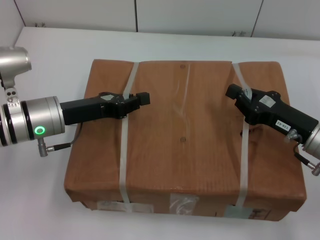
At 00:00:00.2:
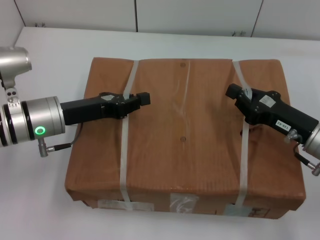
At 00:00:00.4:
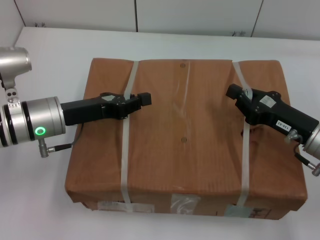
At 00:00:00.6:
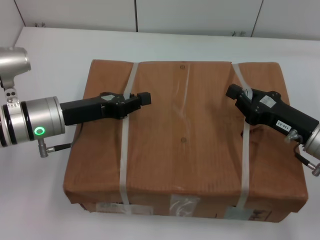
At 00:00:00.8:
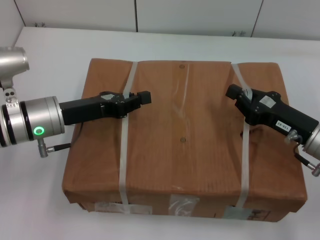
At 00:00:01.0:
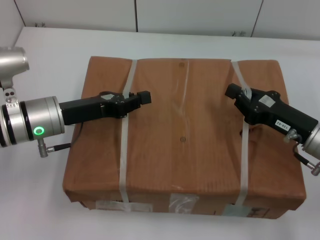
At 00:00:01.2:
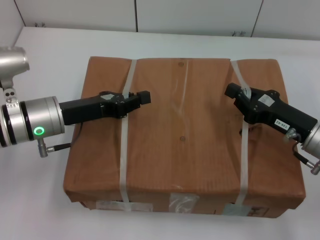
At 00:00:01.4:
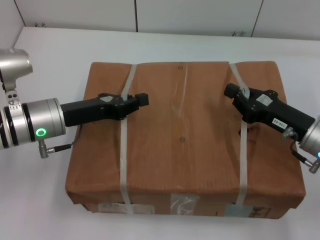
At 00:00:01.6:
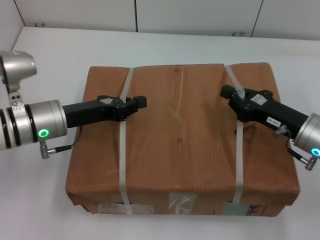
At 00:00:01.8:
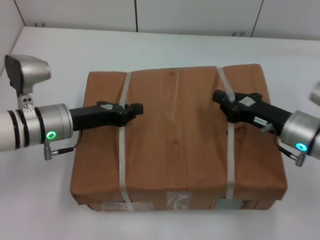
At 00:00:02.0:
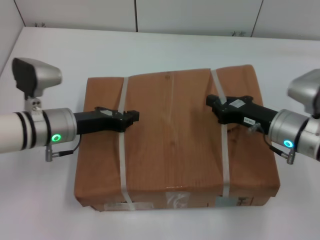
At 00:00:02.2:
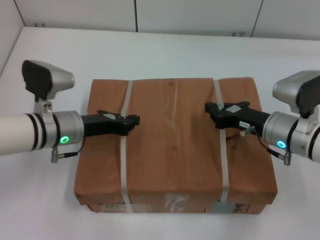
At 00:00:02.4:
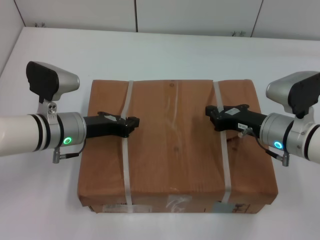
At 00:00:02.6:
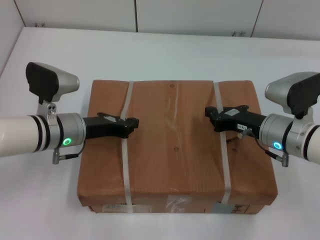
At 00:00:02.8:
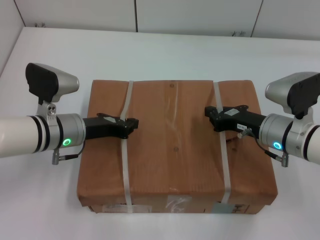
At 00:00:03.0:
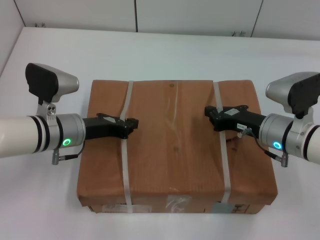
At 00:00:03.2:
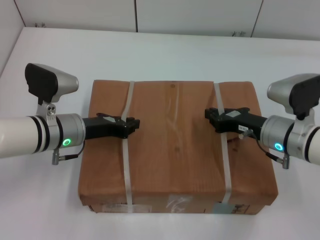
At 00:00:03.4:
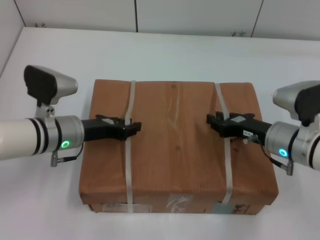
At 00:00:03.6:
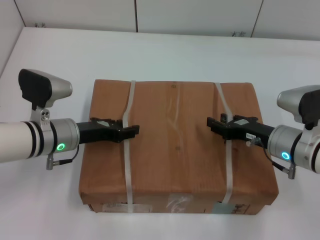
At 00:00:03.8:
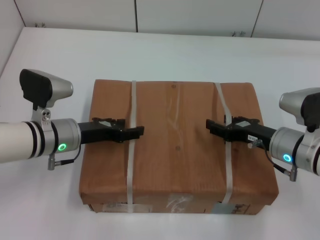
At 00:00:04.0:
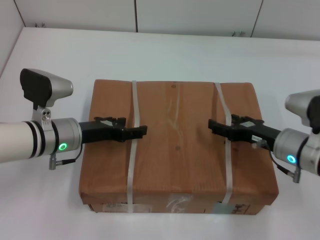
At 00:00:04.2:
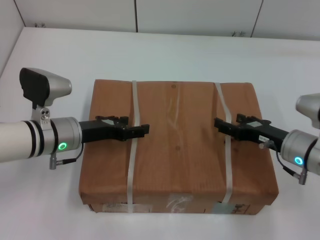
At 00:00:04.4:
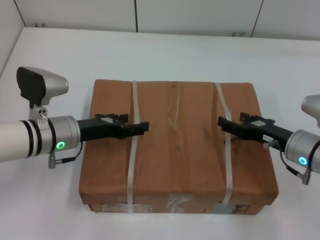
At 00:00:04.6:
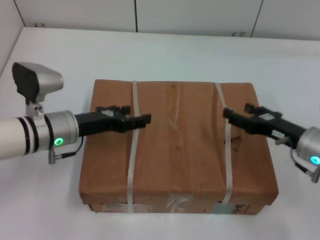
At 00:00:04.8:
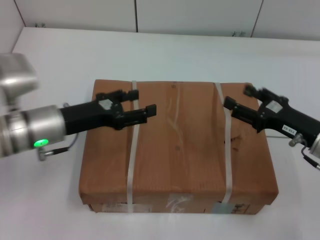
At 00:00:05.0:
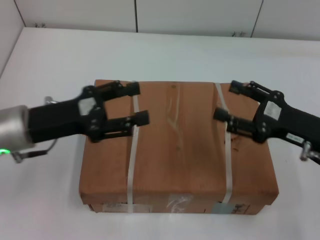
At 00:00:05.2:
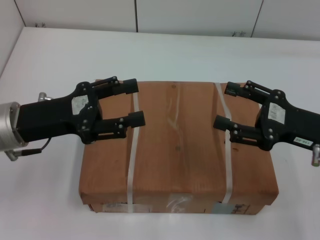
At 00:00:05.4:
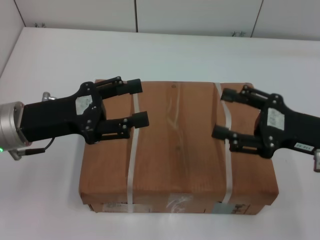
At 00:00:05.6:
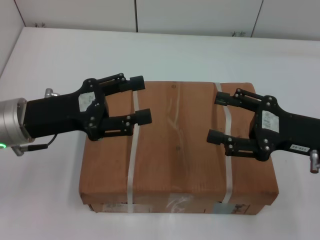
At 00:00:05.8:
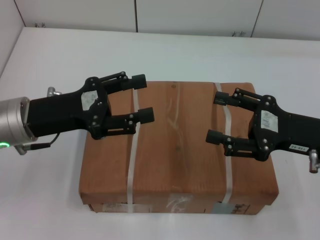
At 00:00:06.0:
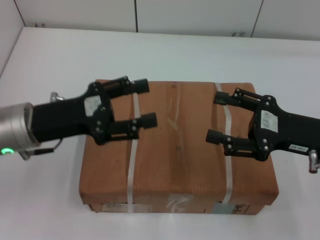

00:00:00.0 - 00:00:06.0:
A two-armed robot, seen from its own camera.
Task of the whole recording: place the box on the table with both arms.
Step, 00:00:00.0 - 00:00:03.2: Place the box on the table with left gripper.
Step, 00:00:00.0 - 00:00:03.2: Place the box on the table with right gripper.
Step, 00:00:03.4 - 00:00:03.8: Loosen the box on the table with left gripper.
Step, 00:00:03.4 - 00:00:03.8: Loosen the box on the table with right gripper.
00:00:00.0 - 00:00:01.6: The grippers make only small movements.
00:00:01.6 - 00:00:03.0: The right gripper ends up about 5 cm from where it was.
00:00:03.0 - 00:00:04.4: The left gripper opens. The right gripper ends up roughly 5 cm from where it was, and opens up.
00:00:04.4 - 00:00:06.0: Both grippers move upward, some 10 cm.
